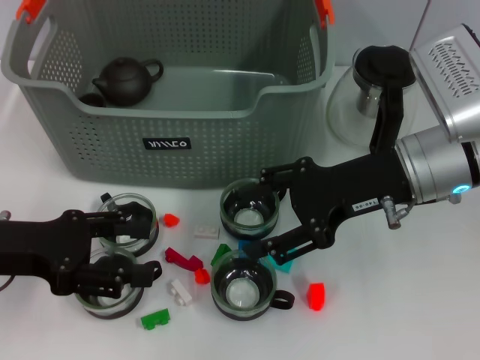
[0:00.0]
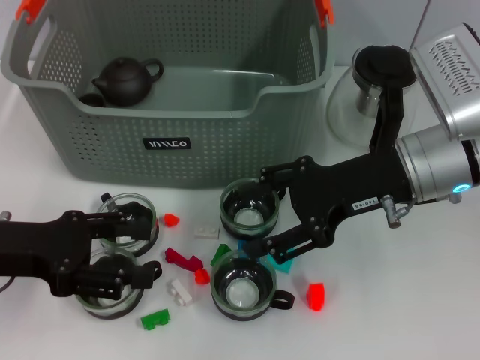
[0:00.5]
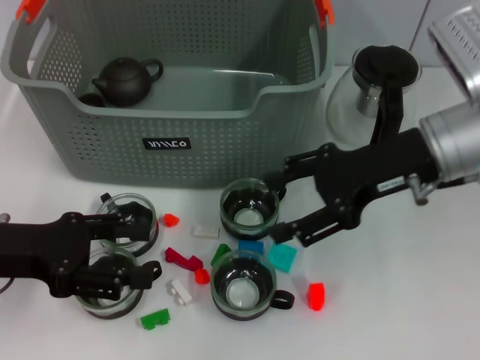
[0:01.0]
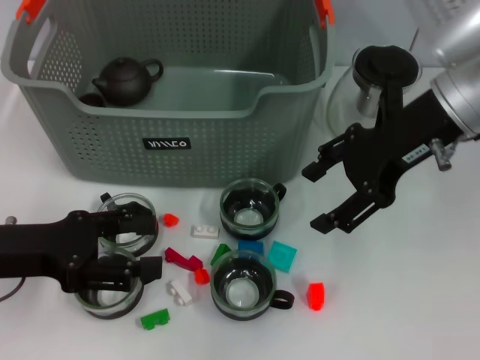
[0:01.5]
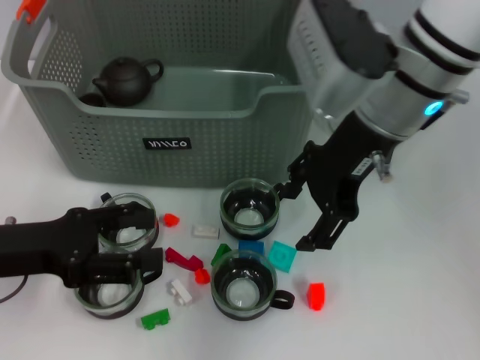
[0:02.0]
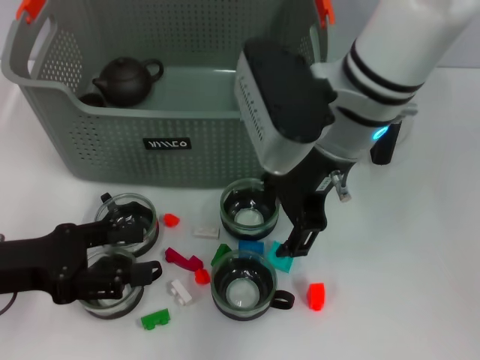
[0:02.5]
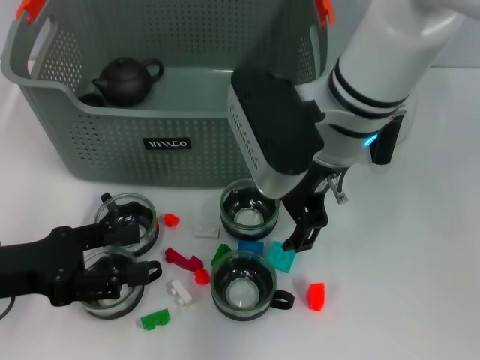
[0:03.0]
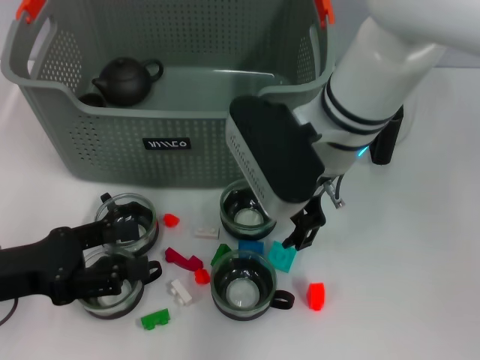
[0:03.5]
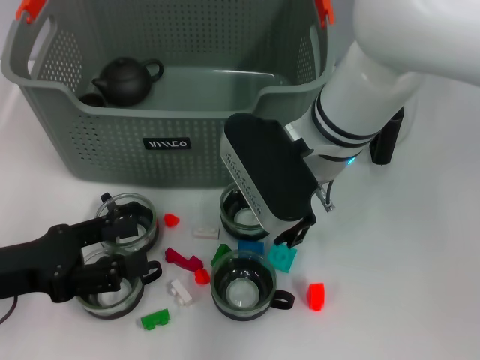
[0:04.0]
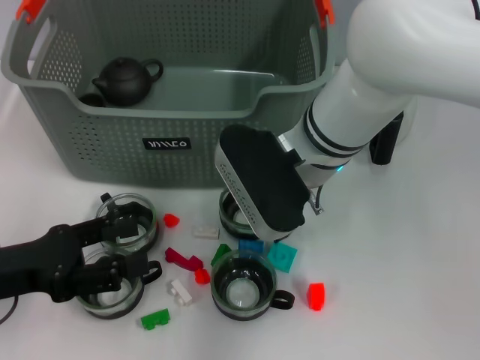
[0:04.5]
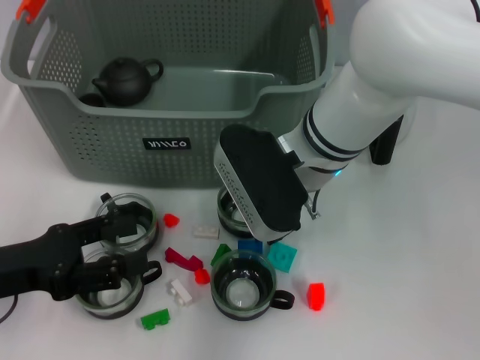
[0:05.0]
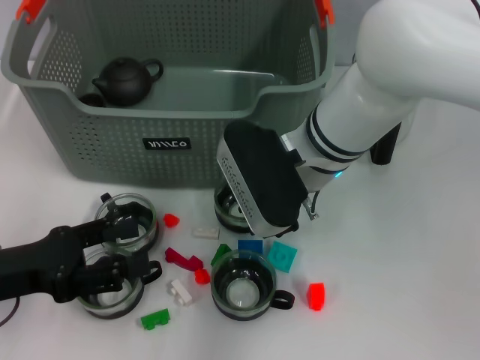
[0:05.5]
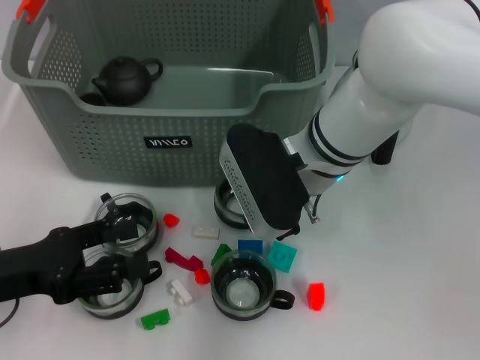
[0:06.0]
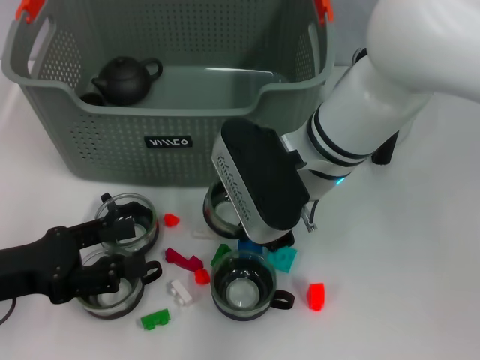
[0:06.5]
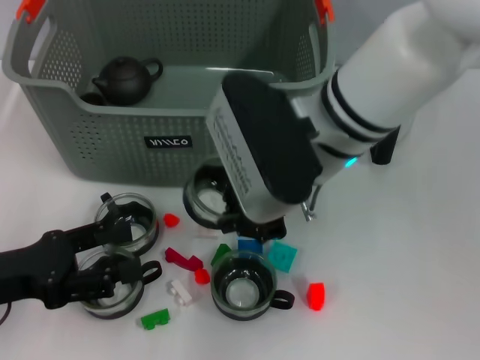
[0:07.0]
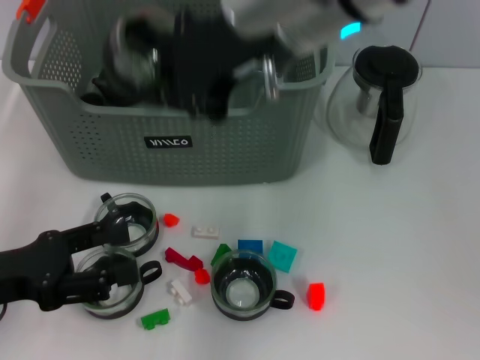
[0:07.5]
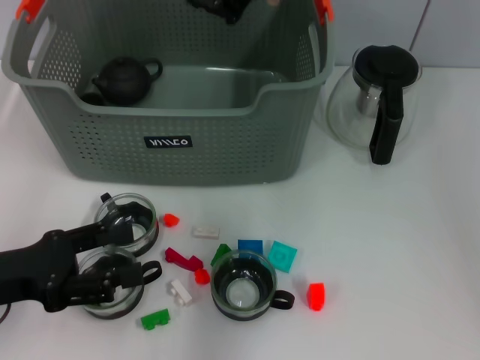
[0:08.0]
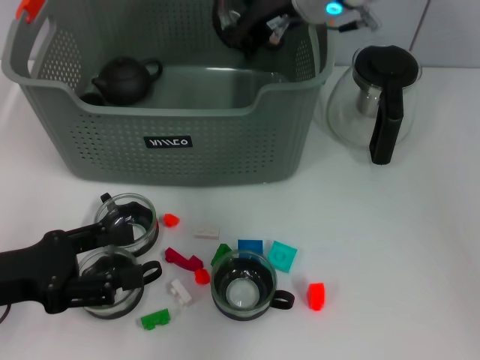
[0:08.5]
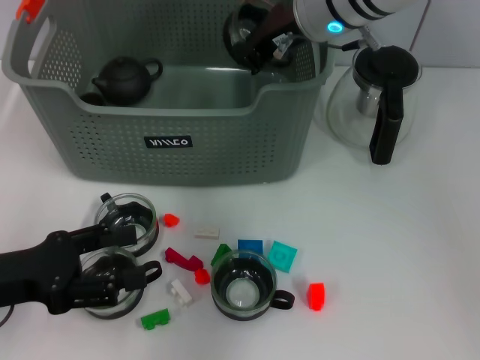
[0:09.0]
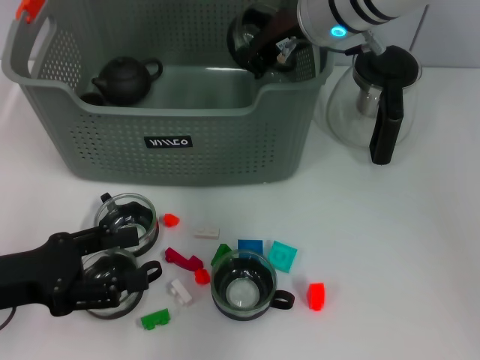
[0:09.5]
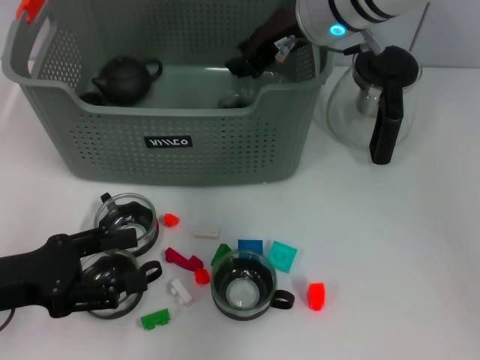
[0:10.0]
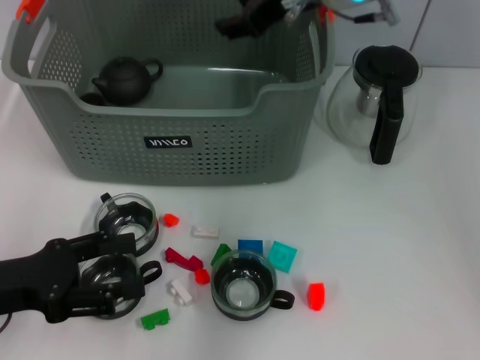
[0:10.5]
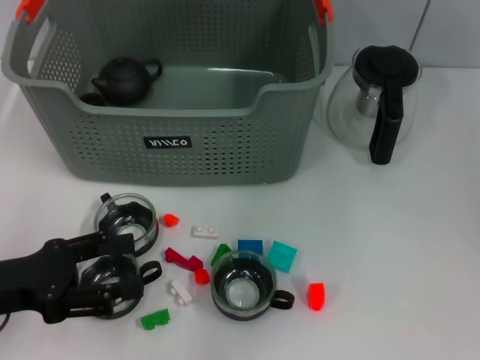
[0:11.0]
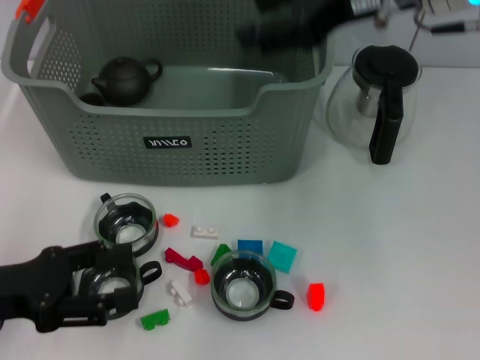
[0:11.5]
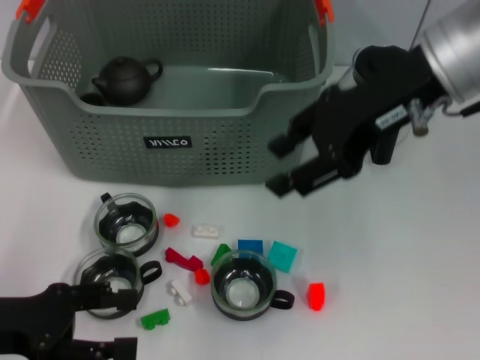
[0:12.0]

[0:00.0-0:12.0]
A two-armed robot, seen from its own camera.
Task of the whole recording: pick up the teacup on the table and place it into the storage bin, pick up the block on the table and place it into the storage bin.
Step, 0:00.0 to 0:06.0: Grasp the cup with right gripper.
Step, 0:06.5 to 0:10.0: Place the cup in the storage box with right gripper.
0:00.0 to 0:02.0: The right gripper shifts approximately 10 cm upward and to the left.
0:02.0 to 0:04.0: The right gripper shifts roughly 10 cm downward and to the left.
0:04.0 to 0:06.0: The right gripper closes.
0:06.0 to 0:08.0: The right gripper is displaced upward and forward by some 15 cm.
0:08.0 to 0:10.0: The right gripper is displaced downward by approximately 5 cm.
0:10.0 to 0:12.0: The right gripper heads backward, to the right and upward, covering some 15 cm, and opens up.

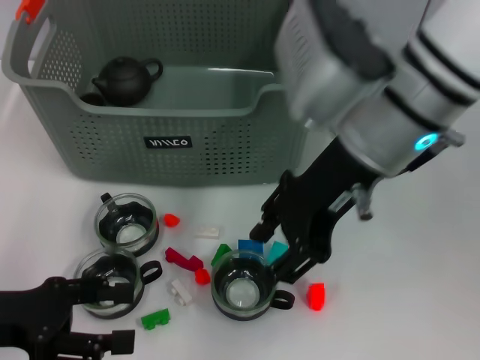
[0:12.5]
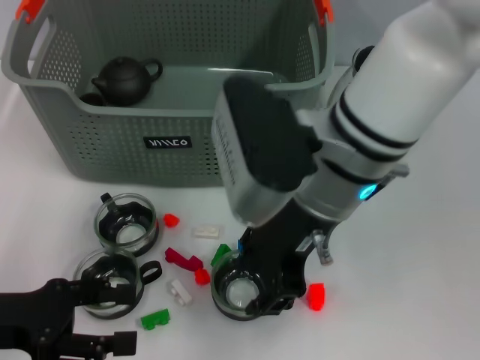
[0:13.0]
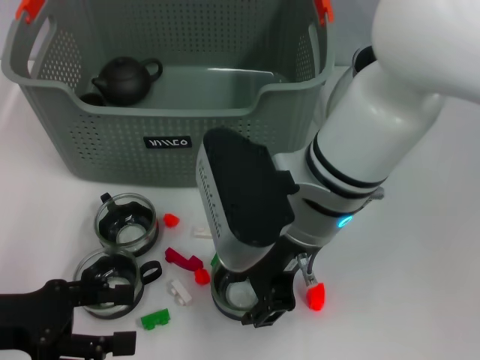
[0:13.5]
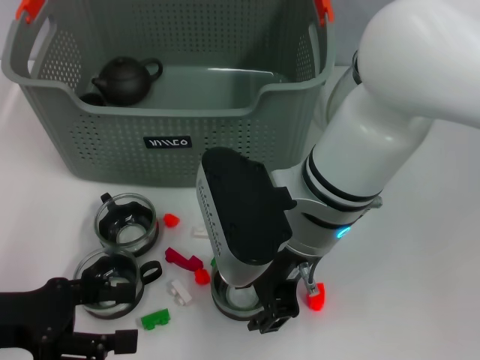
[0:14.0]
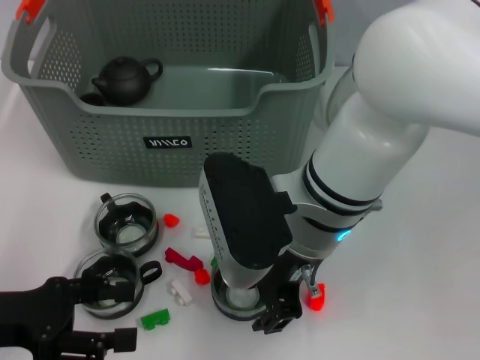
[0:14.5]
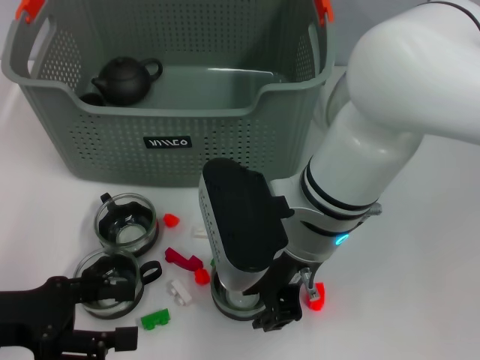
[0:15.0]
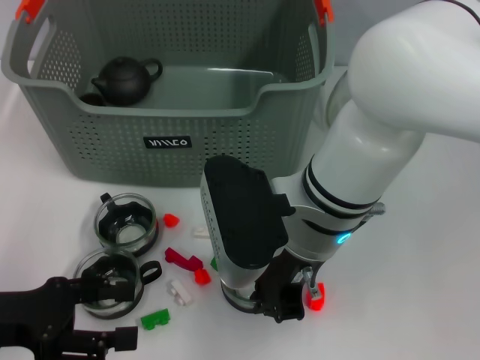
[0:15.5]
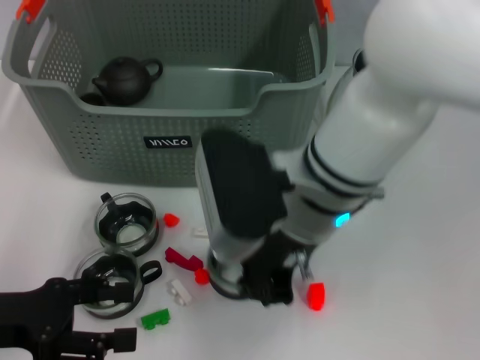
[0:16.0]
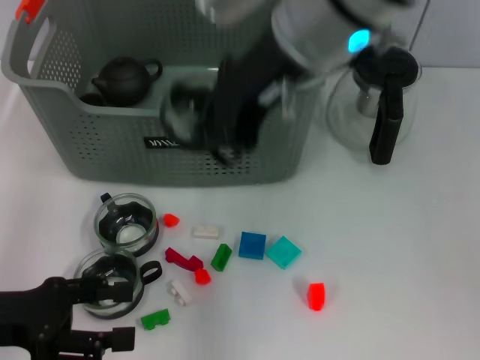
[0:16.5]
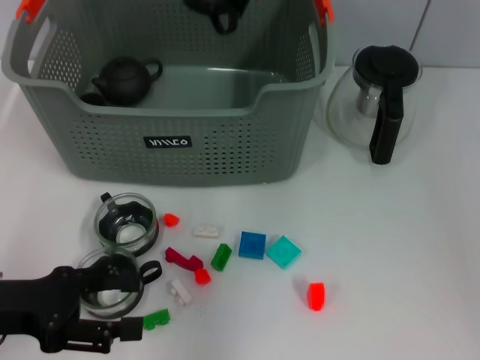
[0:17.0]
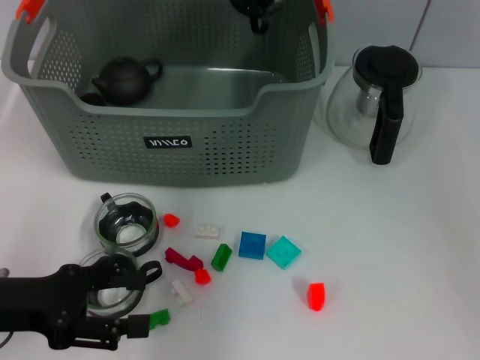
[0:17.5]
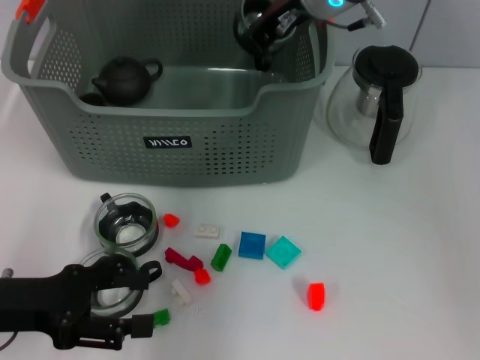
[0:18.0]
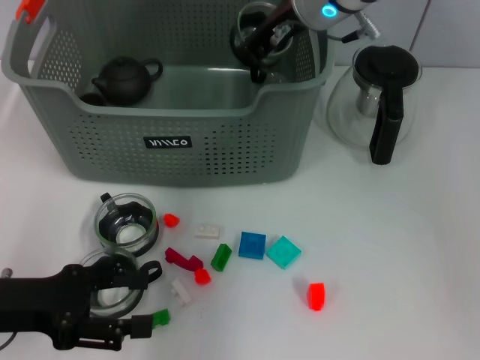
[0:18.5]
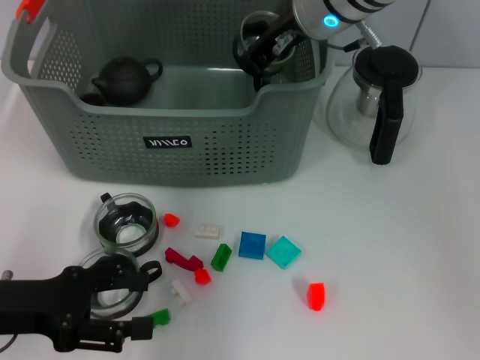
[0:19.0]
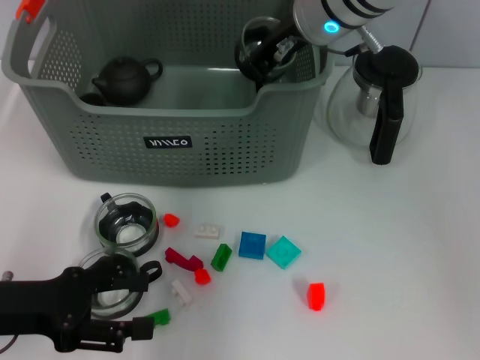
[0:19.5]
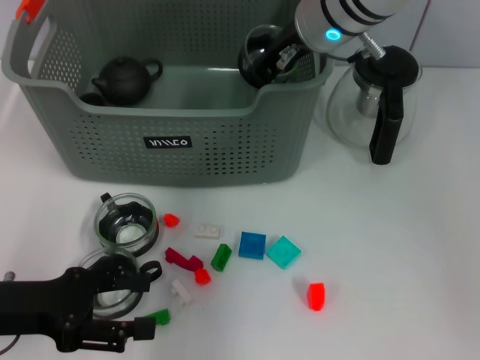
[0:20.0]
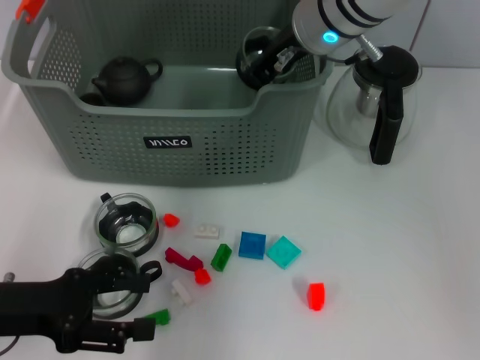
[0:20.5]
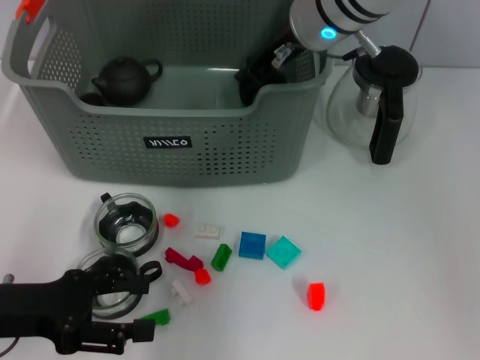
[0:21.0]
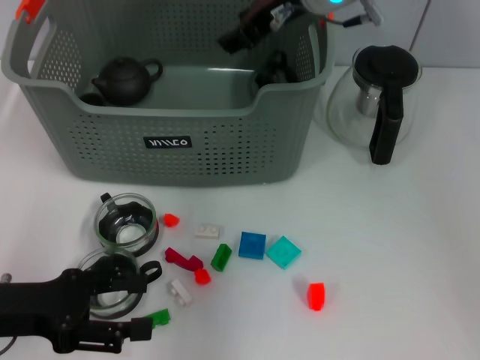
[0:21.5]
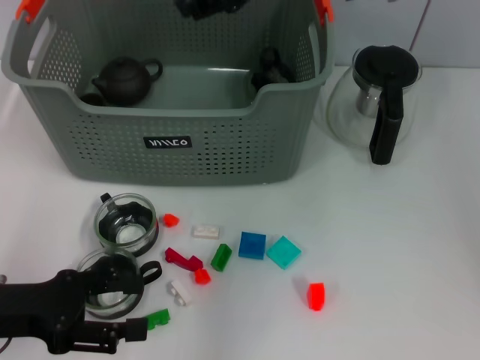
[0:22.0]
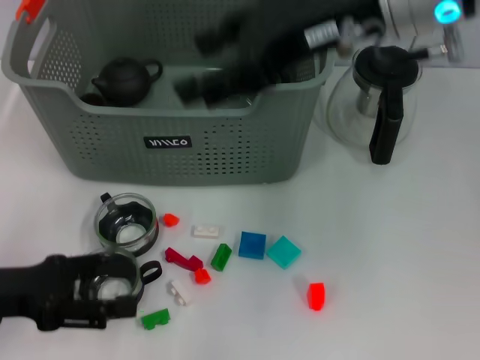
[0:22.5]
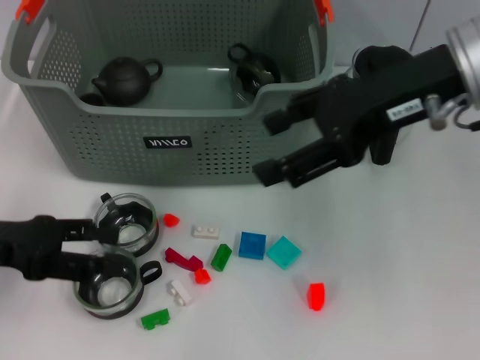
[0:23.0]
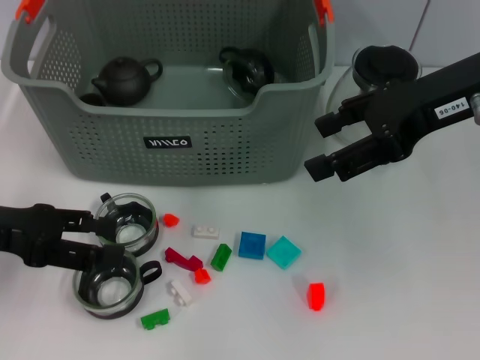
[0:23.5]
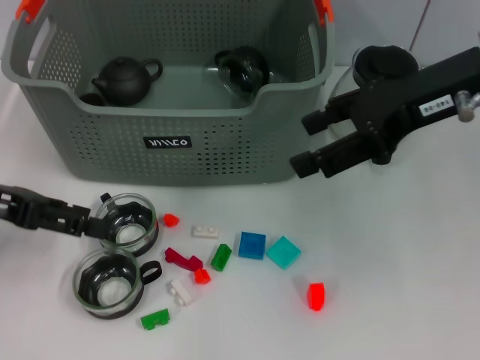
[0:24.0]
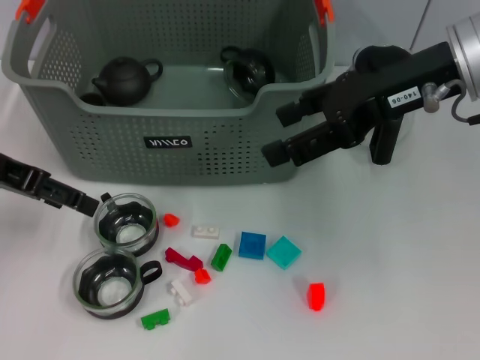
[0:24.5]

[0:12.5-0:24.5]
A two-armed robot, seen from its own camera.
Task of the whole recording: pick up the teacup on the table and place it into the storage bin, pick up the block on the table and place it into the storage bin.
Step, 0:12.5 to 0:15.0: Grasp the cup with right gripper.
Step, 0:15.5 to 0:21.5: Place the cup in the storage box with right gripper.
0:12.5 to 0:14.5: The right gripper goes approximately 10 cm downward and to the left.
0:14.5 to 0:16.5: The right gripper shifts some 15 cm upward, and closes up.
0:16.5 to 0:18.5: The right gripper heads forward and downward, covering roughly 15 cm.
0:18.5 to 0:20.5: The grippers make only small movements.
0:20.5 to 0:22.5: The right gripper is displaced backward and upward by approximately 15 cm, and opens up.
0:22.5 to 0:24.5: The left gripper shifts some 15 cm forward and upward, while the right gripper shifts approximately 5 cm to the right.

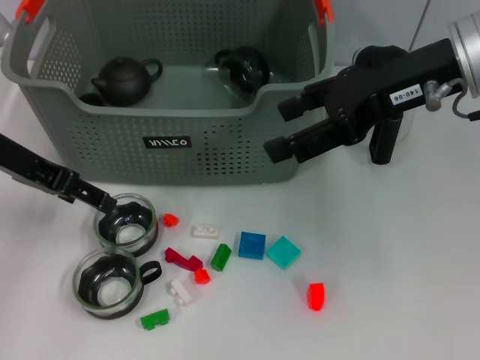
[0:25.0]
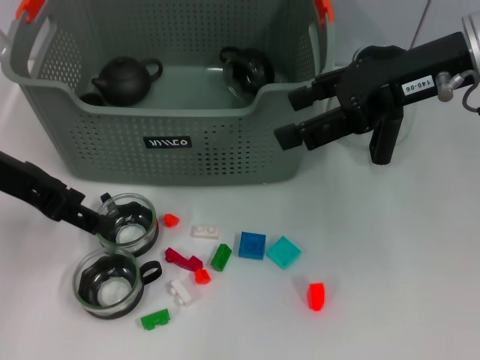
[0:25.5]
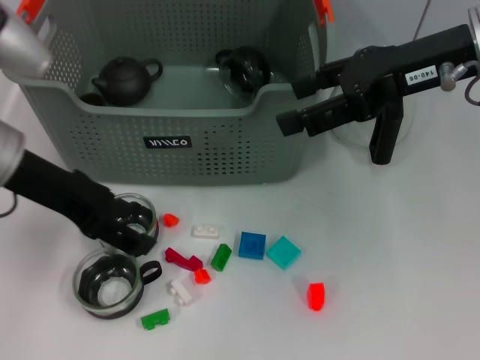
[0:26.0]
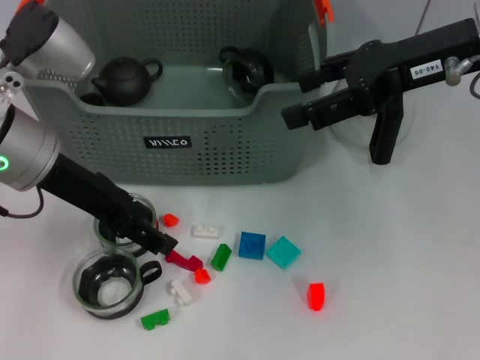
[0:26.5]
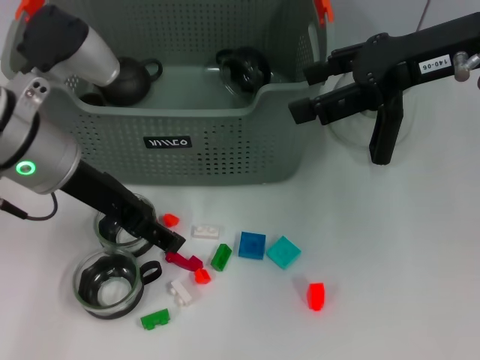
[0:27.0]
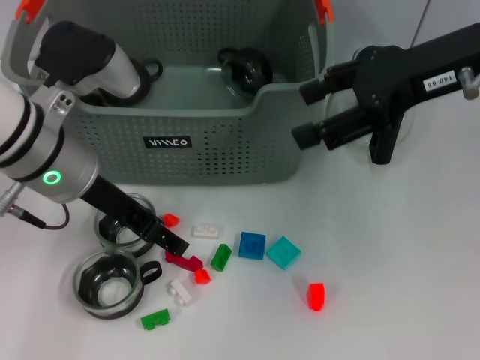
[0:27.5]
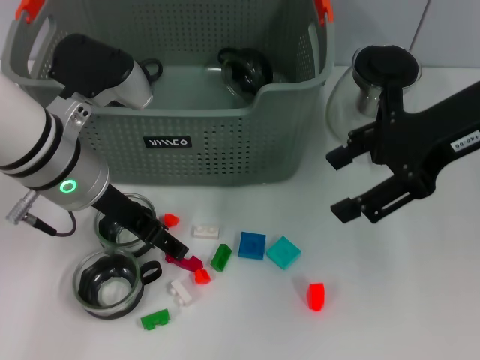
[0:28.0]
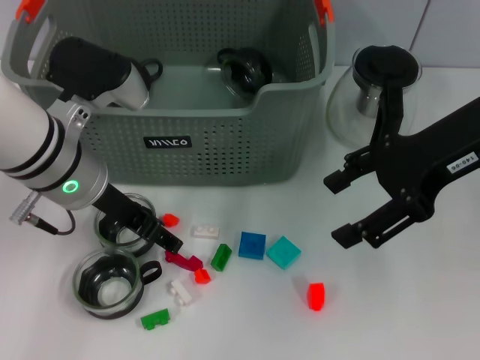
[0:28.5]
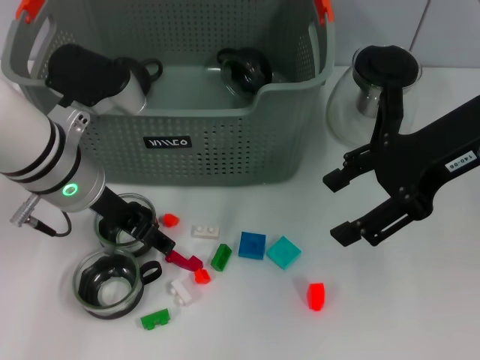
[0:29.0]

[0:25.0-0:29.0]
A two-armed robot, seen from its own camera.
Task of the whole recording: pick up the teacup on the table and place it into the storage bin, pick up the block on the table and place it into the storage bin.
0:25.0 to 0:27.0: The left gripper travels to the right by approximately 10 cm.
